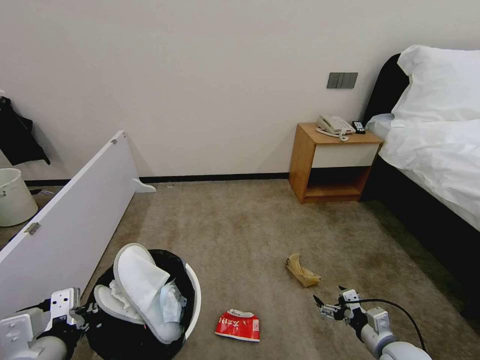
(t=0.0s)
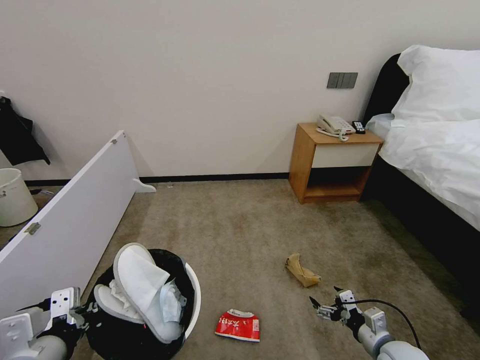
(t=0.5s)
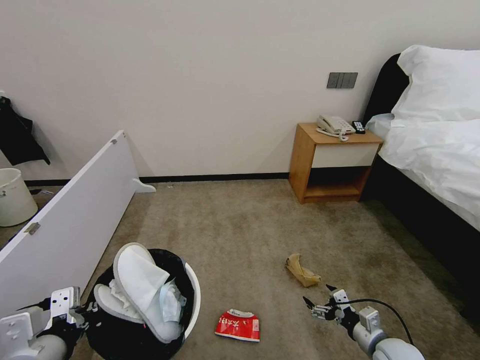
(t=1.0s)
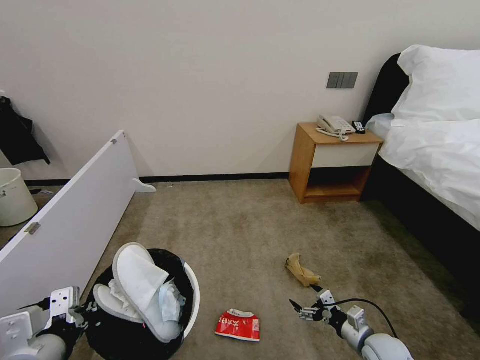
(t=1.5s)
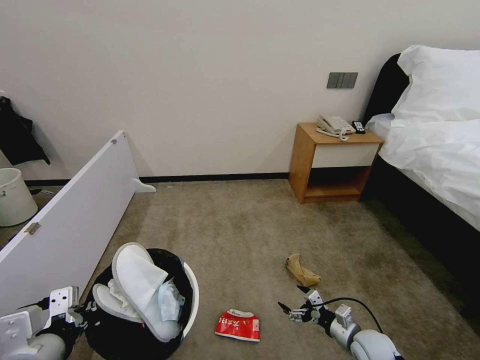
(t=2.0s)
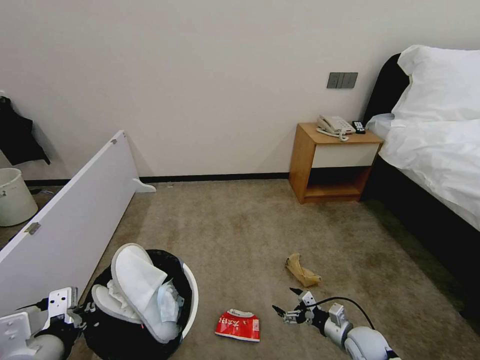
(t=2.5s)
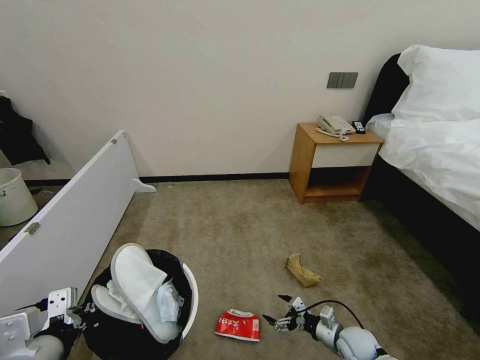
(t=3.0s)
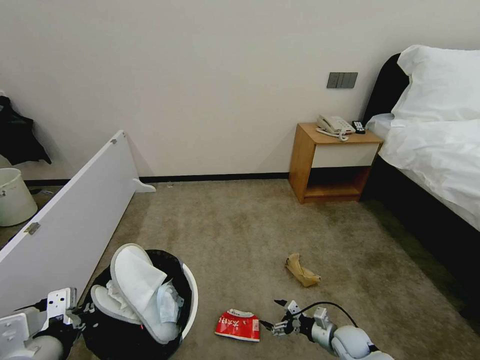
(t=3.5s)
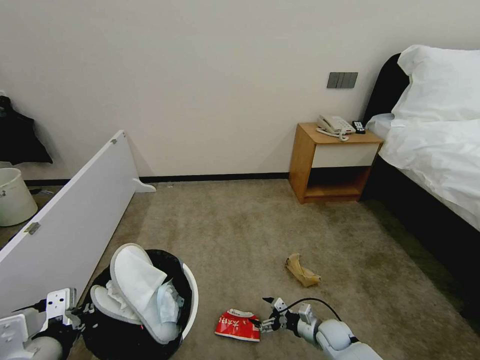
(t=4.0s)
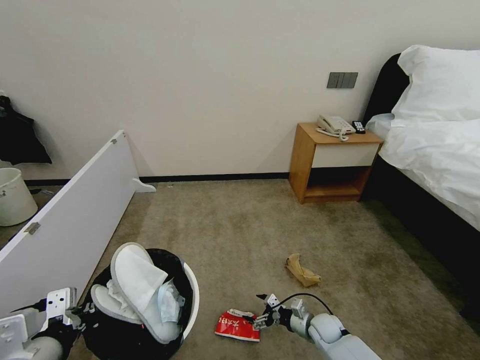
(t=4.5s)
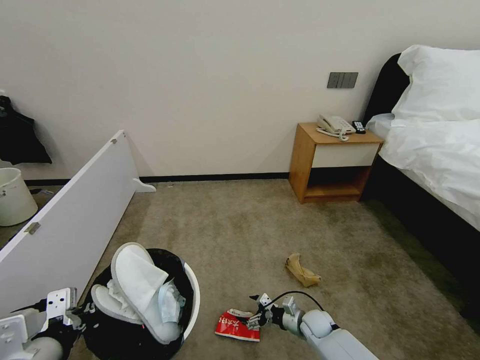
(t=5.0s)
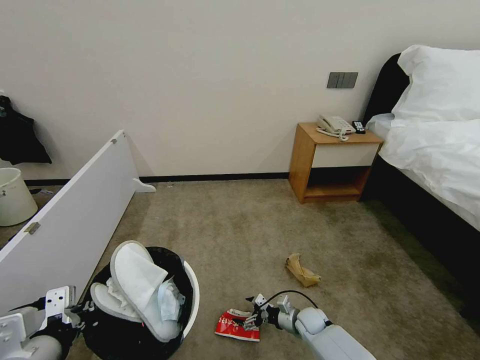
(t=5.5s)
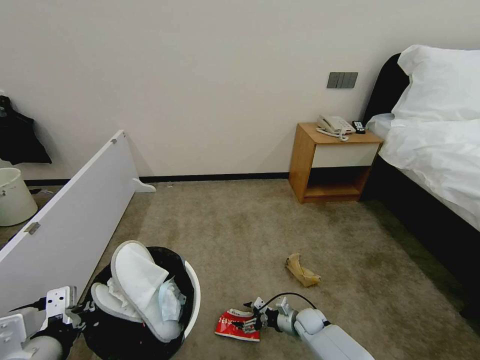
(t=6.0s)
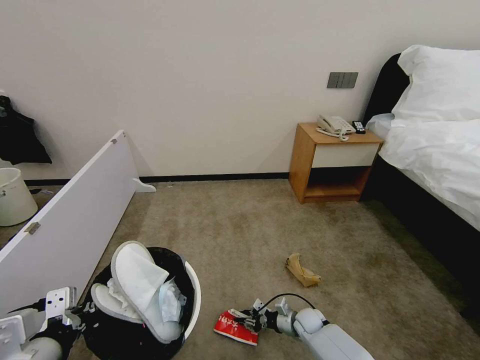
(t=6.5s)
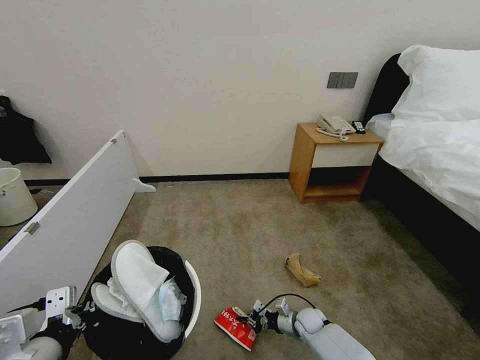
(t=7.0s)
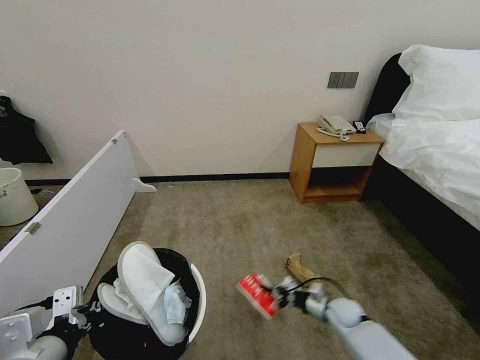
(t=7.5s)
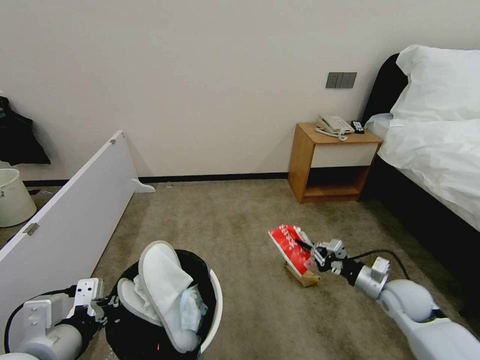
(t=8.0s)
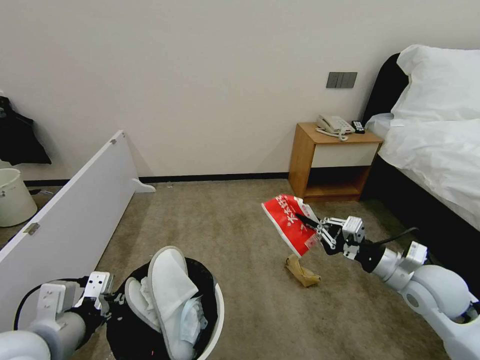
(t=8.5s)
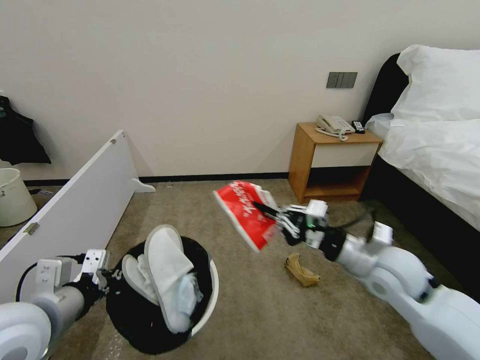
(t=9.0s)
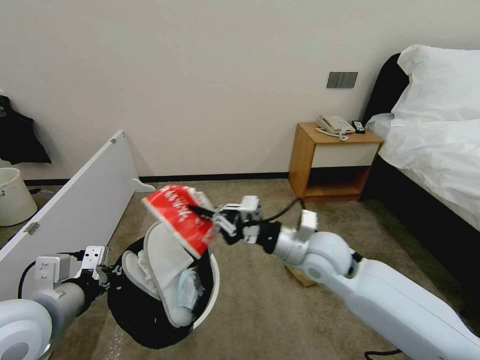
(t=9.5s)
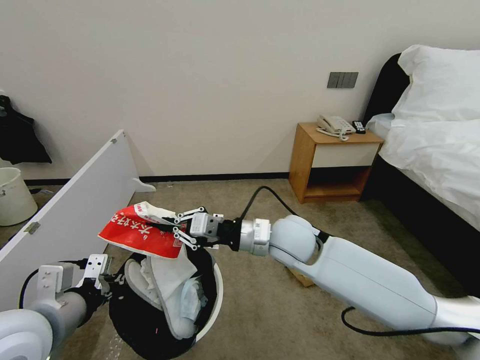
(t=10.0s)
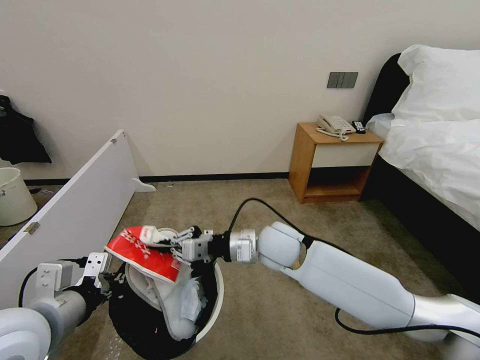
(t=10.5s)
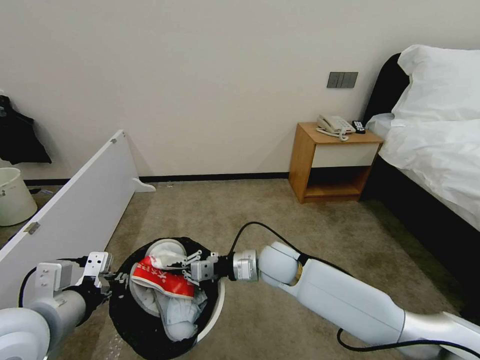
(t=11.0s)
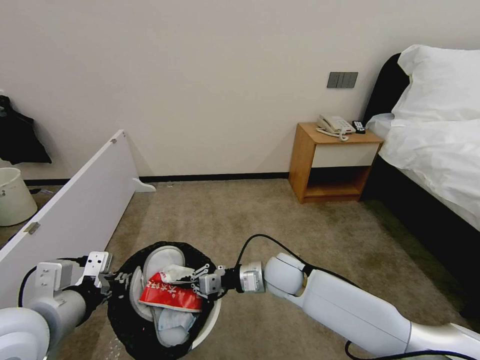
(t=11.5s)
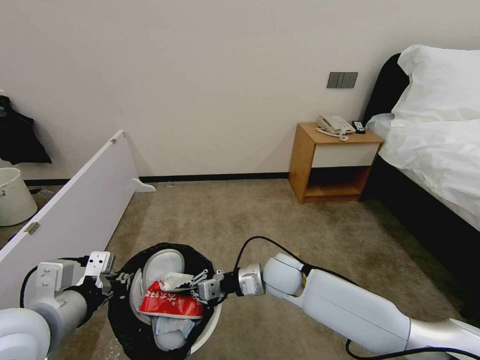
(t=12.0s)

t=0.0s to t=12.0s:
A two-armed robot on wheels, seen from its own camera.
Task of the whole recording: Pick up the trash bin, then pick up the garbage from the floor and place it into the trash bin.
t=0.0s to t=2.0s: The right gripper shifts roughly 5 cm downward.
t=2.0s to t=4.0s: The right gripper moves downward, to the left and forward, roughly 10 cm.
t=4.0s to t=6.0s: The right gripper travels to the left by approximately 5 cm.
t=6.0s to t=8.0s: The right gripper goes about 30 cm upward and to the right, and closes its fingers.
t=8.0s to t=10.0s: The left gripper moves roughly 5 cm, while the right gripper heads to the left and upward, covering roughly 35 cm.
t=10.0s to t=12.0s: The right gripper goes about 15 cm downward.

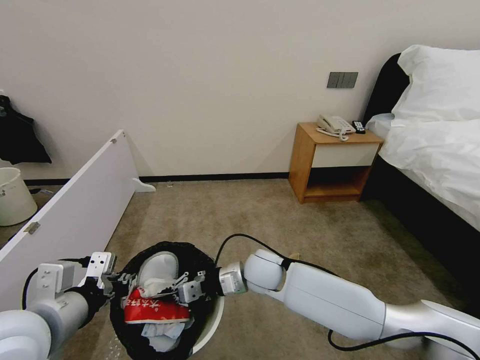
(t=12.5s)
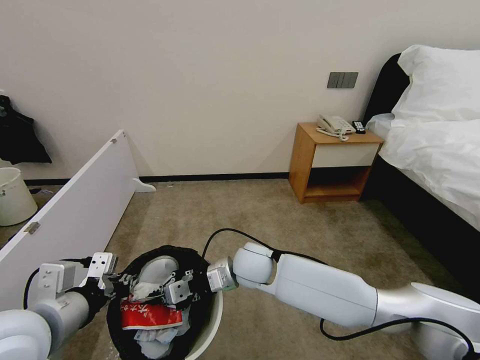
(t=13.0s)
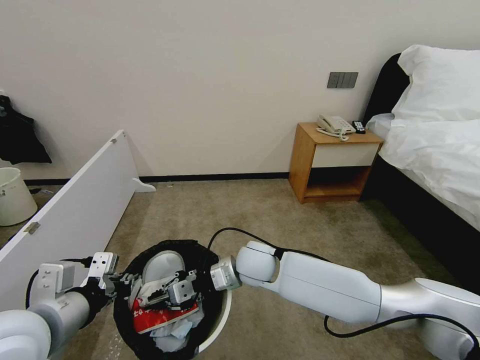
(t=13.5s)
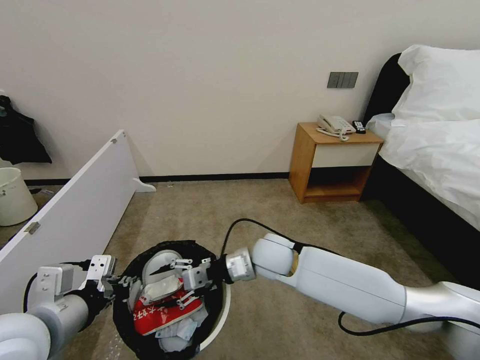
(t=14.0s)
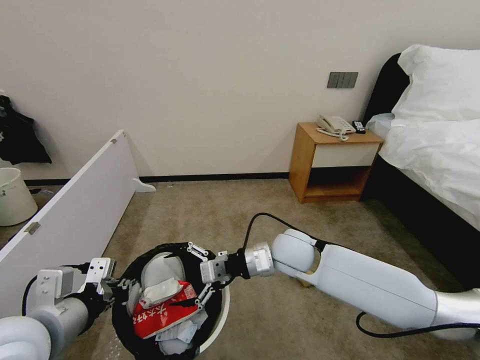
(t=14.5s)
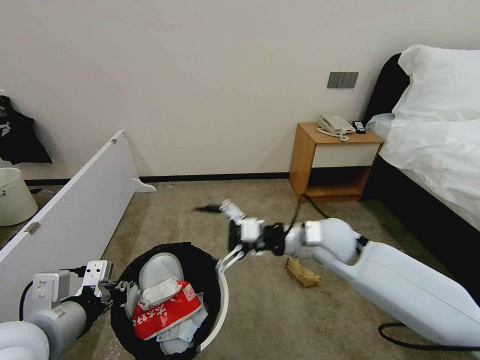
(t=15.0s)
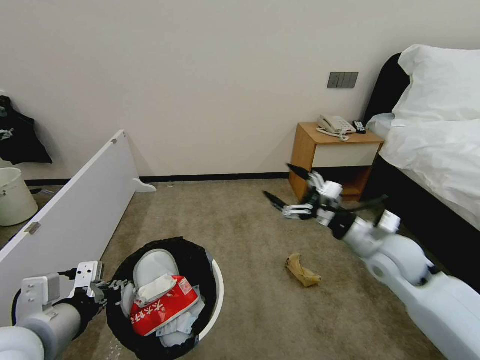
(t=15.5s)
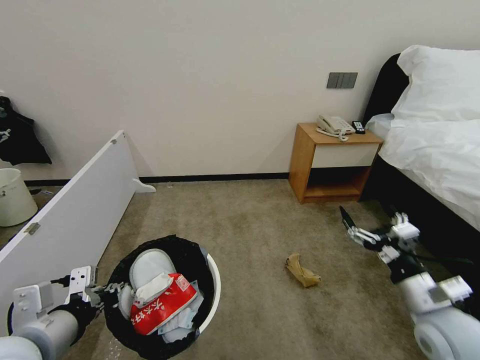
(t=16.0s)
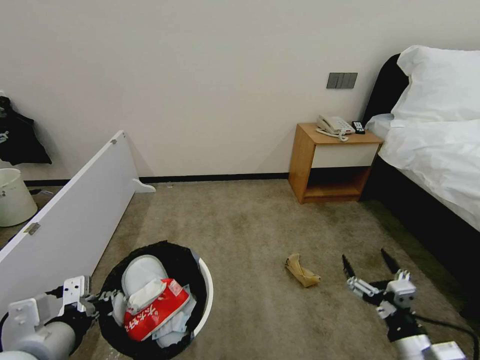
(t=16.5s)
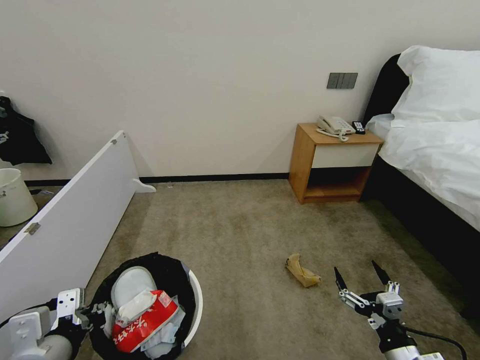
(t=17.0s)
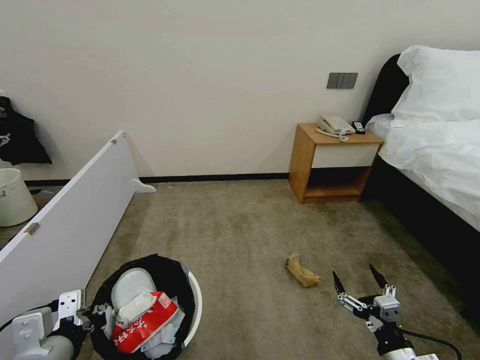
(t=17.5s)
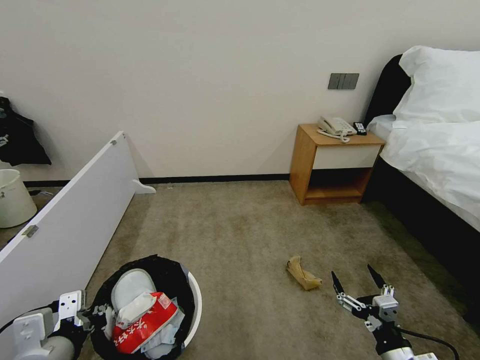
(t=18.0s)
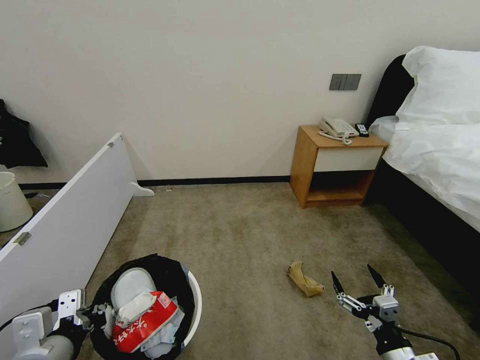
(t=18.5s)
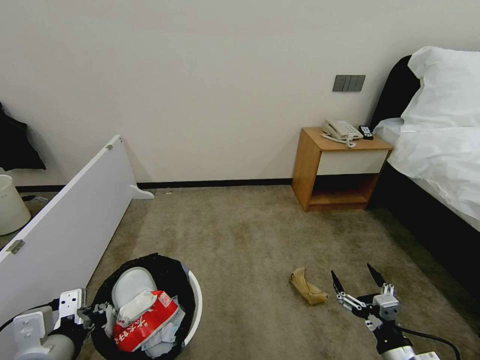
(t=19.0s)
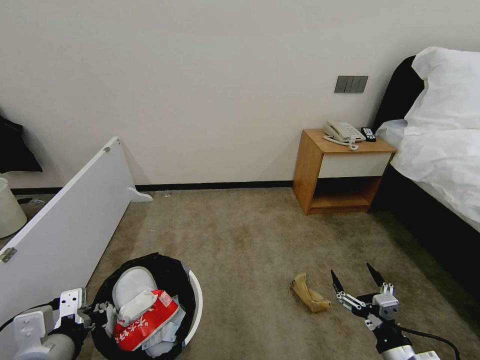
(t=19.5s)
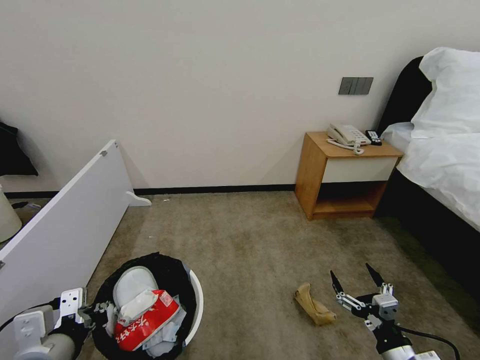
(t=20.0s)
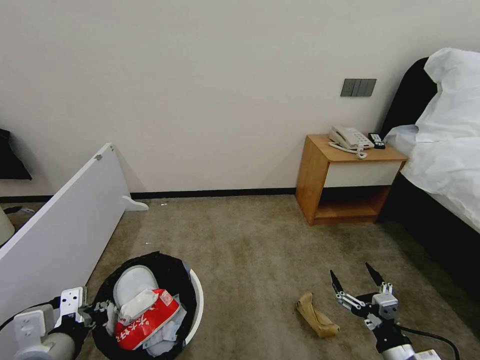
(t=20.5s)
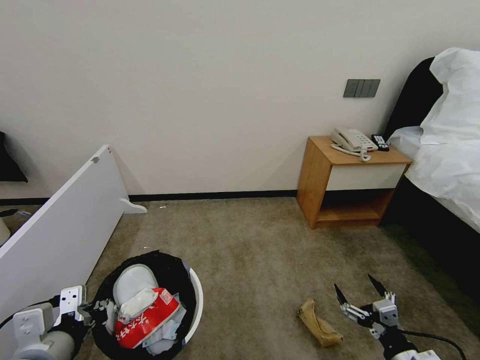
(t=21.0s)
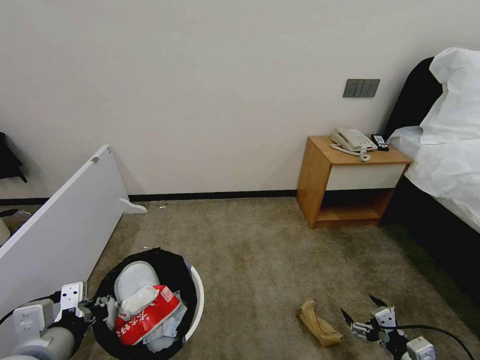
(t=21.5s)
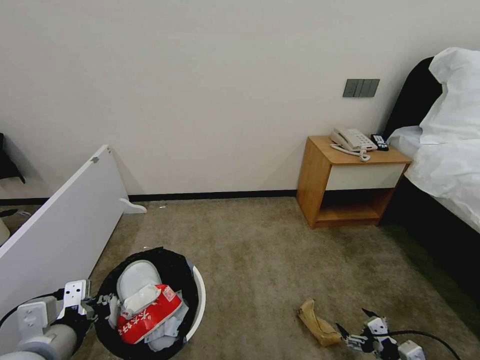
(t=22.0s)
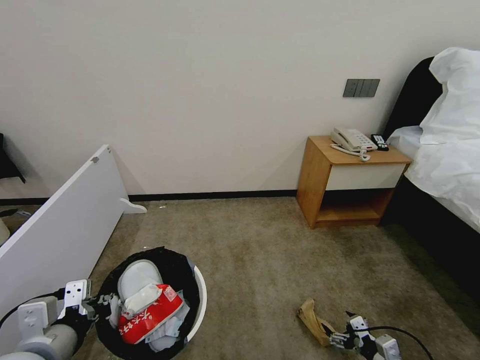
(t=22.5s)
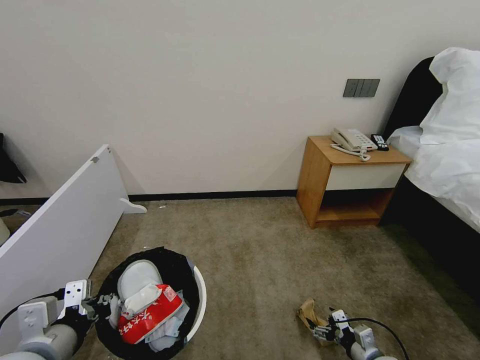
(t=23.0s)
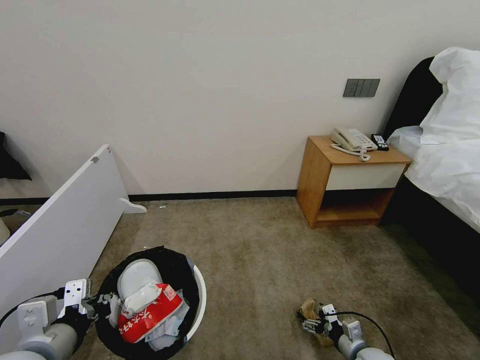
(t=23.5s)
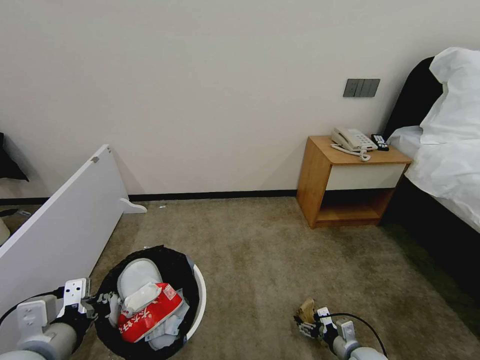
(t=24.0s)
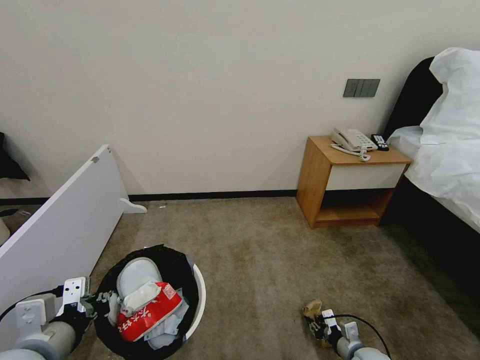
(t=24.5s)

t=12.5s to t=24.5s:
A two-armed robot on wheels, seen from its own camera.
Task of the whole recording: Pick up the trash bin, then pick up the garbage from the floor and place it into the trash bin.
t=12.5s to t=14.5s: The right gripper travels upward and to the right by some 10 cm, and opens.
t=14.5s to t=16.5s: The right gripper is displaced backward, to the right and downward by about 35 cm.
t=16.5s to t=18.5s: The right gripper moves about 5 cm.
t=18.5s to t=20.5s: The two grippers keep their place.
t=20.5s to t=22.5s: The right gripper moves downward and to the right, about 10 cm.
t=22.5s to t=24.5s: The right gripper shifts some 10 cm downward and forward, and closes its fingers.

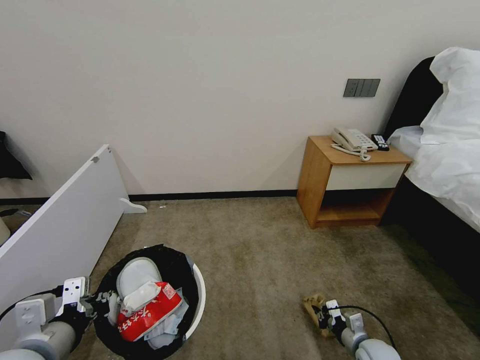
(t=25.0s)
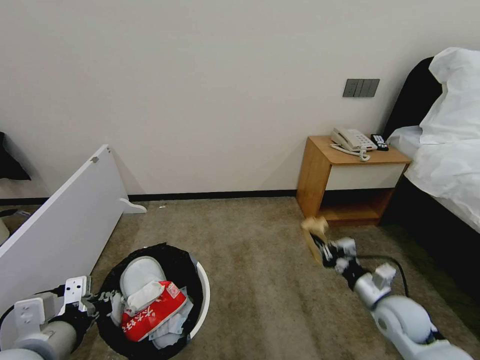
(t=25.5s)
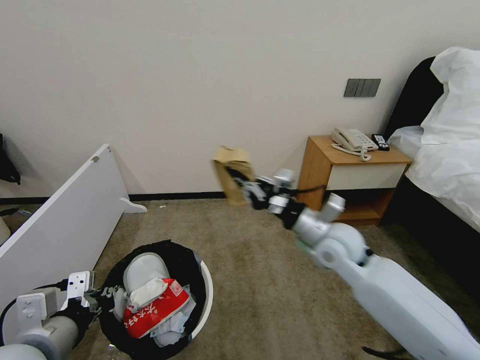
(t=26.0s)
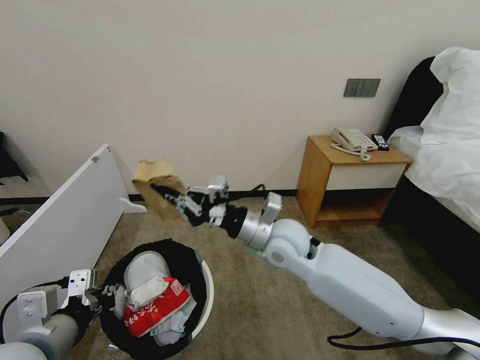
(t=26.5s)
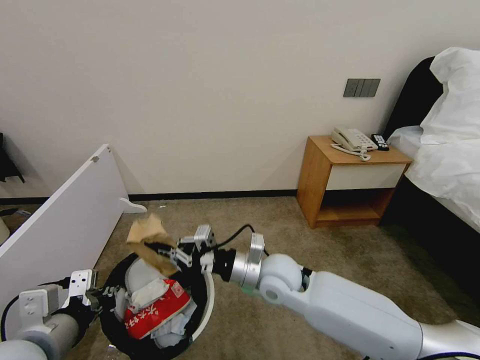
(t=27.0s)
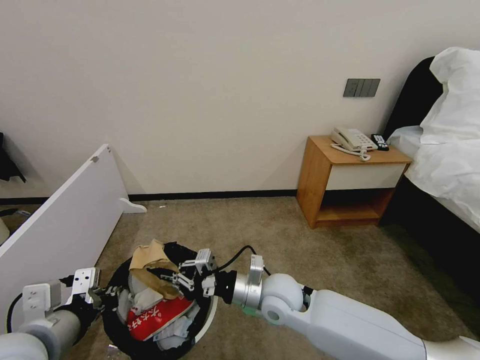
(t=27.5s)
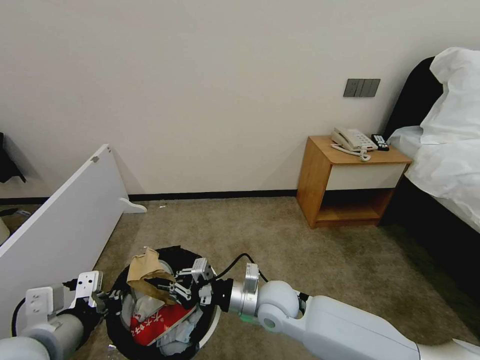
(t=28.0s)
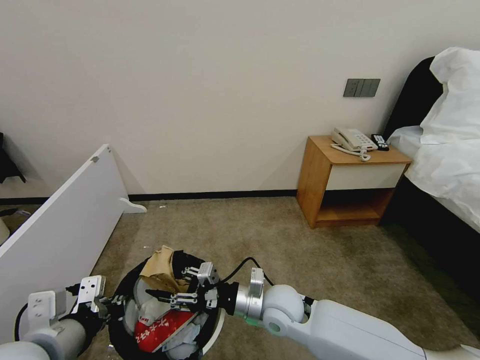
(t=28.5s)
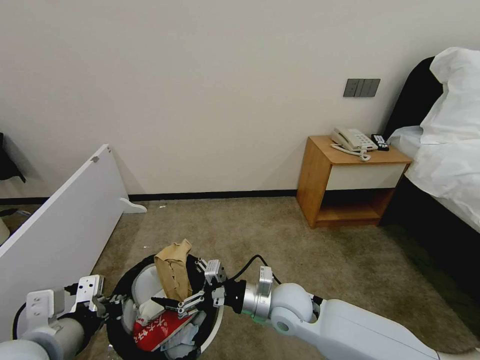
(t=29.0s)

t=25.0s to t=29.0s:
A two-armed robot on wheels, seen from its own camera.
Task of the whole recording: Pick up the trash bin, then pick up the garbage from the floor and place it into the trash bin.
t=25.0s to t=27.0s: The right gripper is displaced to the left and upward by roughly 40 cm.
t=27.0s to t=29.0s: The right gripper moves downward, approximately 5 cm, and opens.
